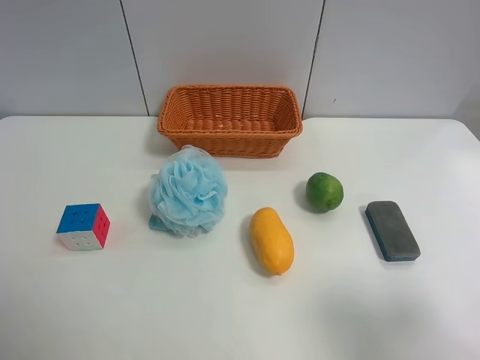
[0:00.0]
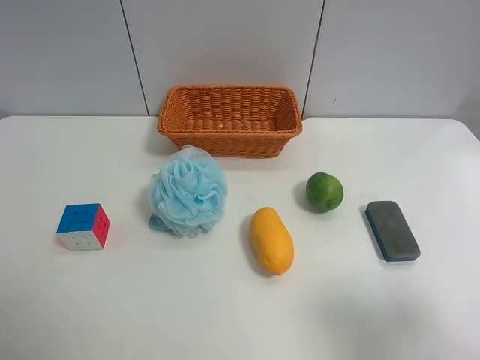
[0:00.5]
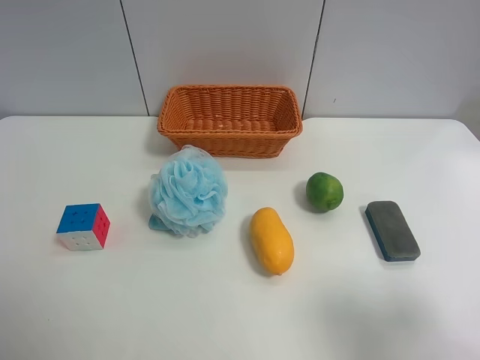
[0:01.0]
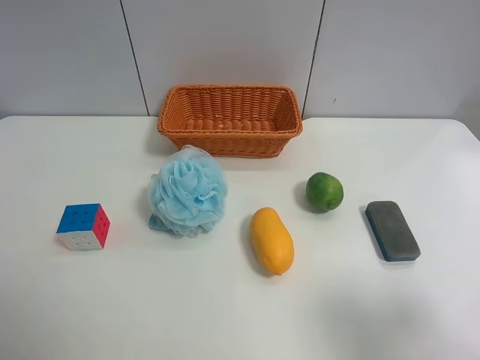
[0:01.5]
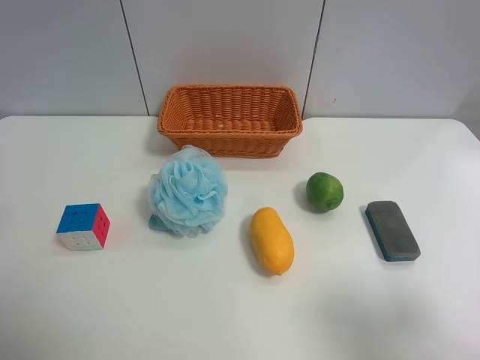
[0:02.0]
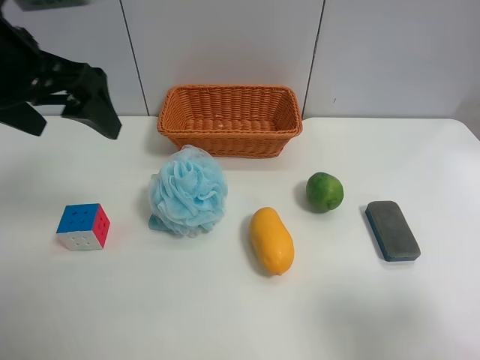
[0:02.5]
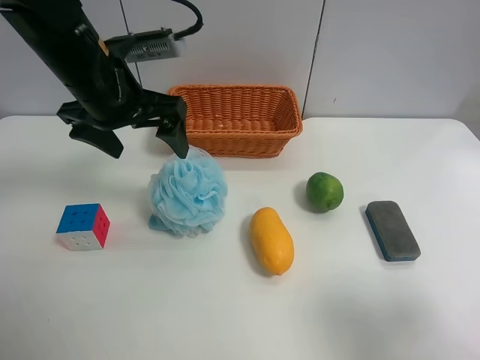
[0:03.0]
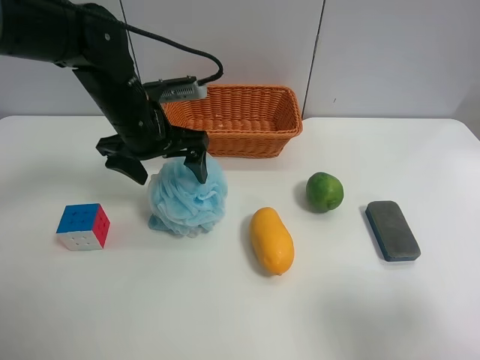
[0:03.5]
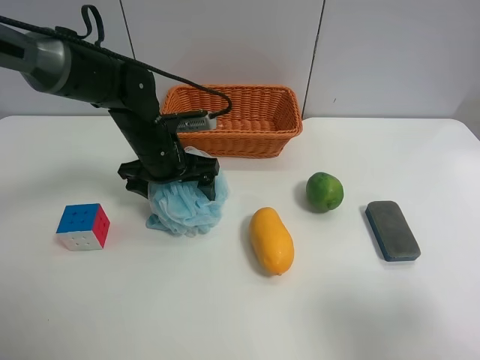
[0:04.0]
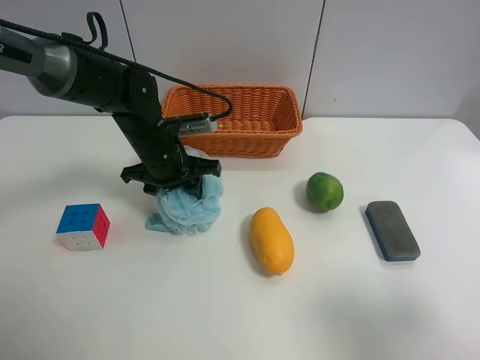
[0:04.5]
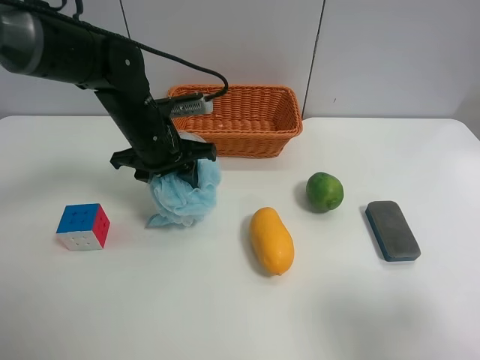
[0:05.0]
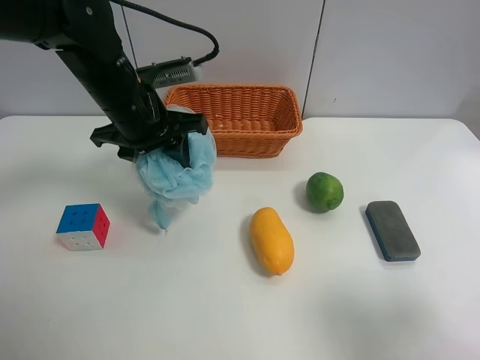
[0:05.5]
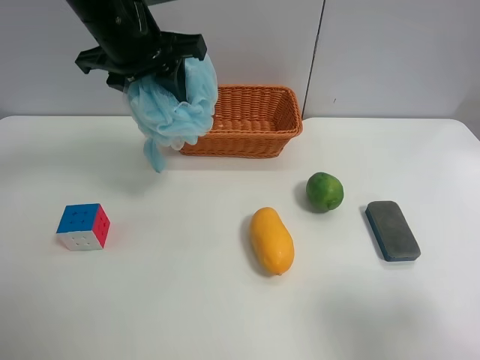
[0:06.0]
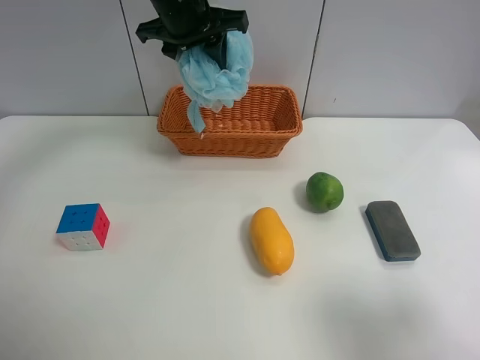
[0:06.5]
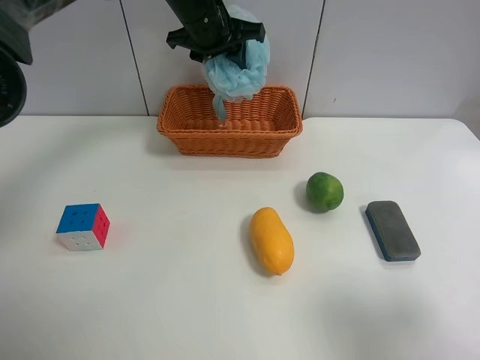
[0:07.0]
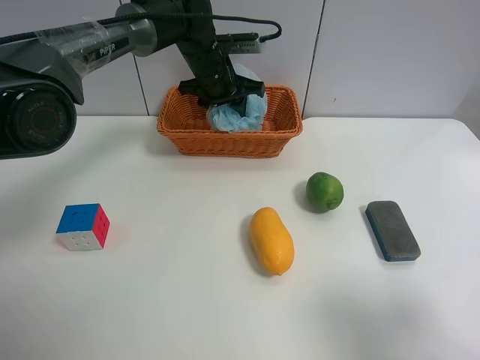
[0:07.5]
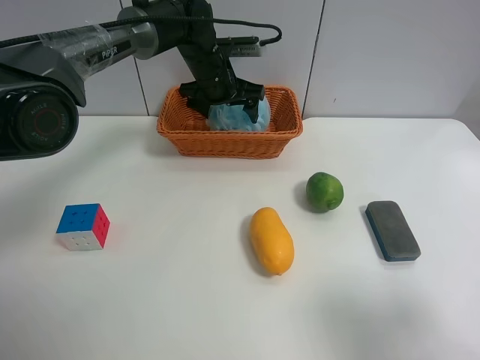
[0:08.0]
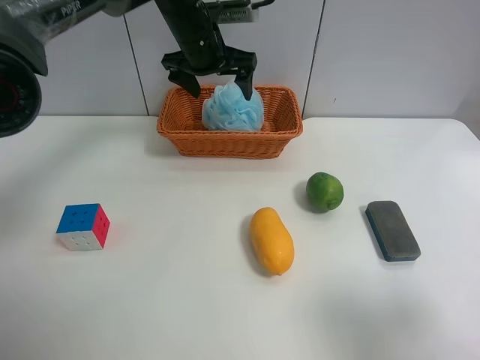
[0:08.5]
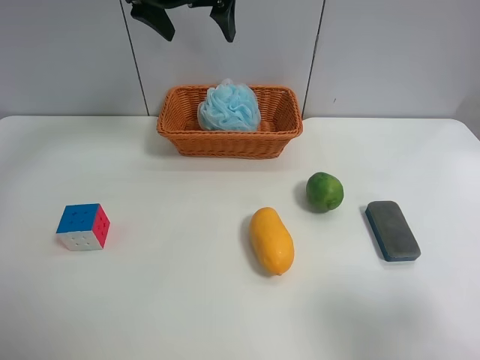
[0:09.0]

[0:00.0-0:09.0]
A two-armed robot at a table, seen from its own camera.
Task of the whole recording: use the left gripper to grab items from the table and place them in the basket.
Step, 0:00.0 to 0:04.0: Grasp the Shower puff with the left gripper.
Step, 0:04.5 to 0:08.0: Place the Shower puff into the basket with the left gripper.
0:02.0 to 0:04.5: The left gripper moves downward, forward and to the right, roughly 35 cm, and closes.
0:04.5 to 0:07.0: The left gripper shifts some 20 cm upward and forward.
0:07.0 to 0:09.0: The left gripper travels upward by about 10 cm, and opens up.

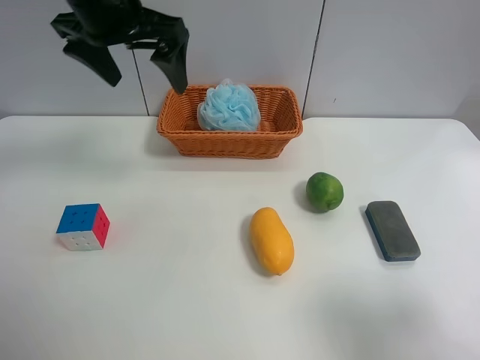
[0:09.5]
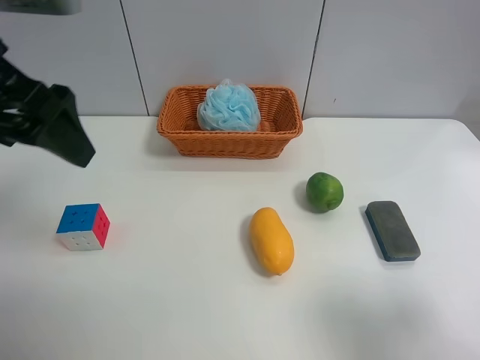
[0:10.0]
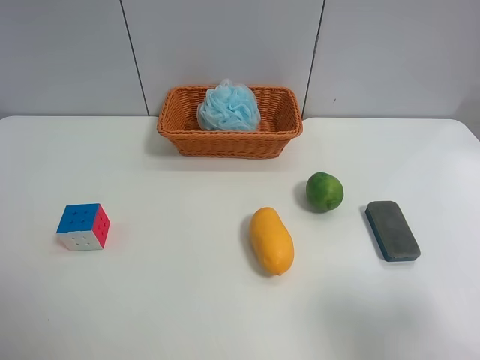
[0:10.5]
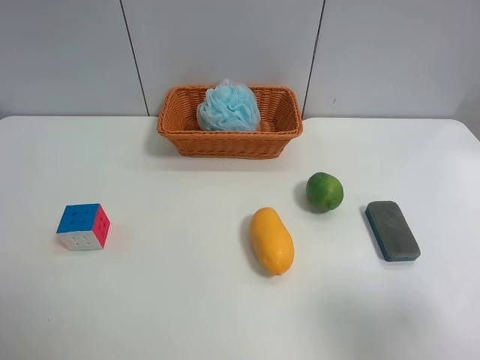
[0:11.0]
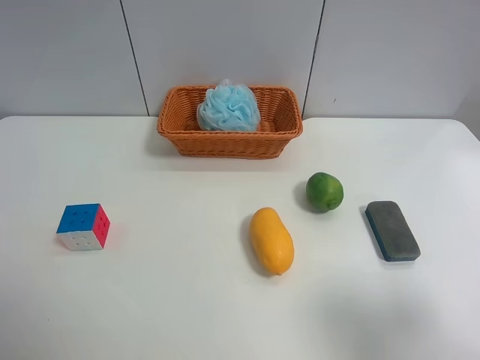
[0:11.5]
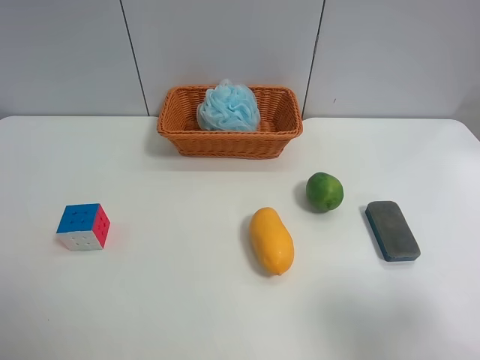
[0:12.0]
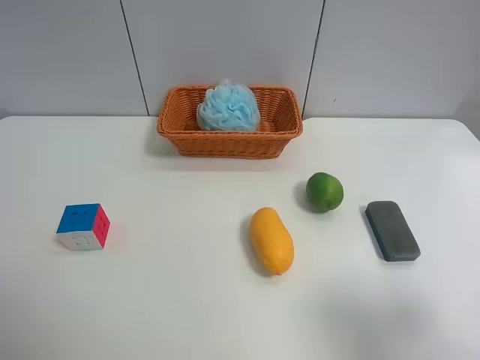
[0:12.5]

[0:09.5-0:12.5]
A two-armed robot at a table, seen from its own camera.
Task of the whole recording: use the left gripper to grab items from the table and place them in the basket.
0:09.5 to 0:11.0: The left gripper moves backward and to the left, some 35 cm.
